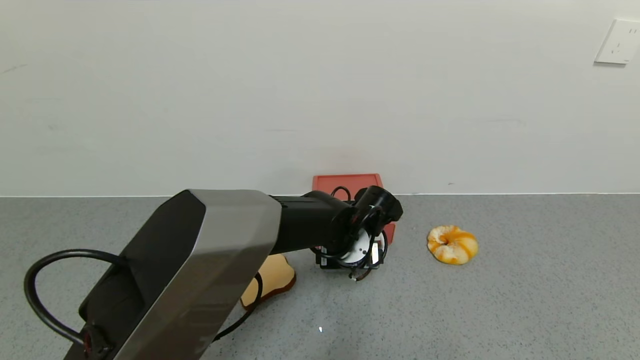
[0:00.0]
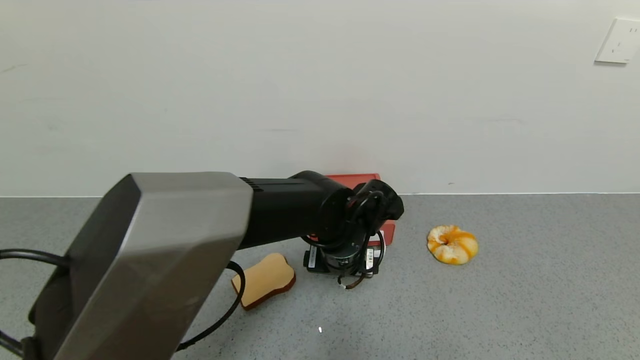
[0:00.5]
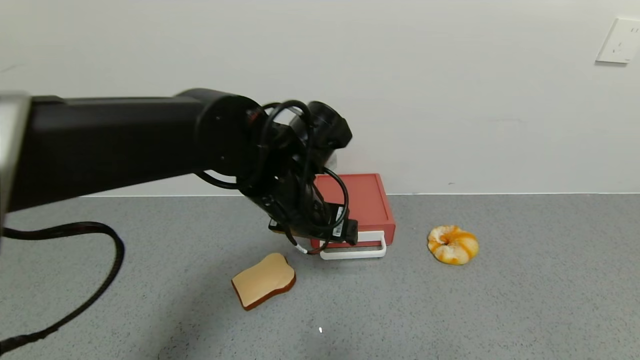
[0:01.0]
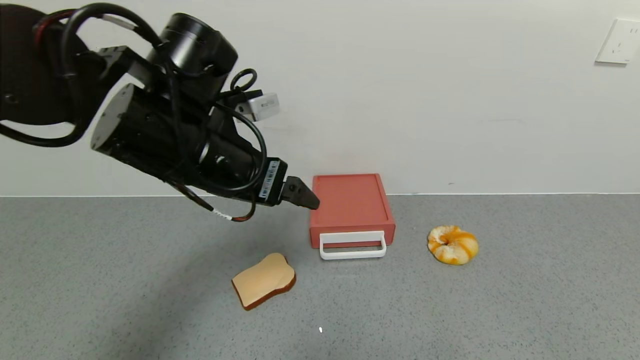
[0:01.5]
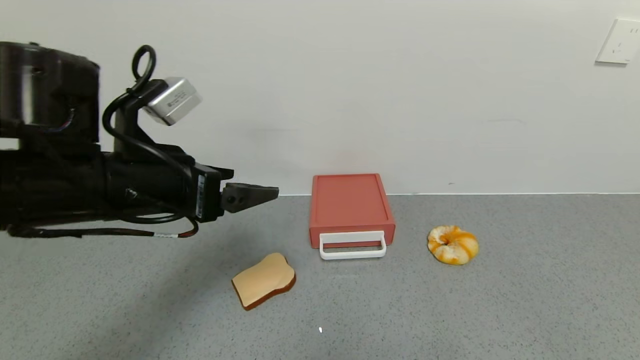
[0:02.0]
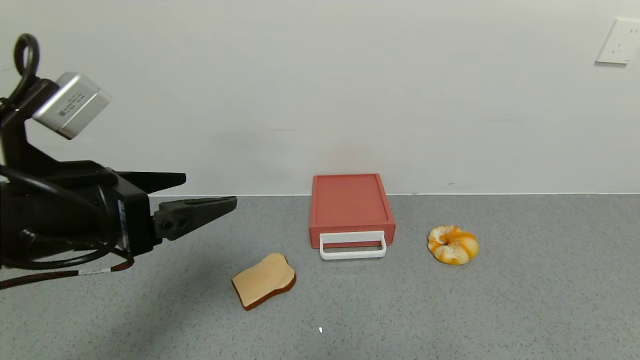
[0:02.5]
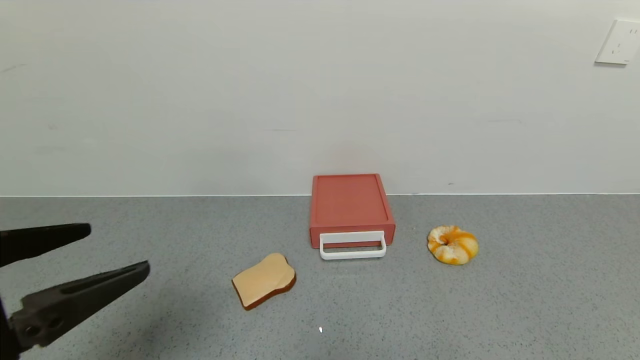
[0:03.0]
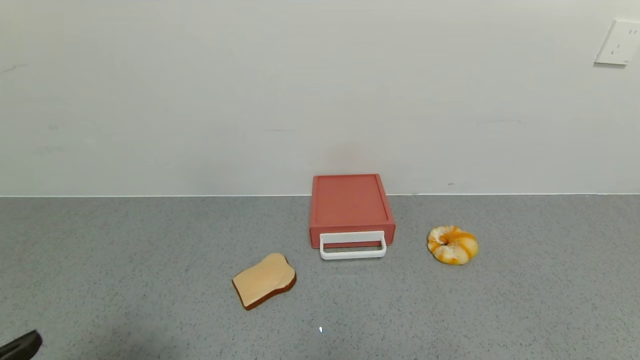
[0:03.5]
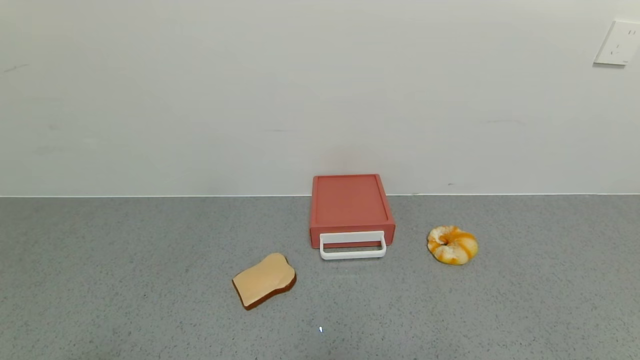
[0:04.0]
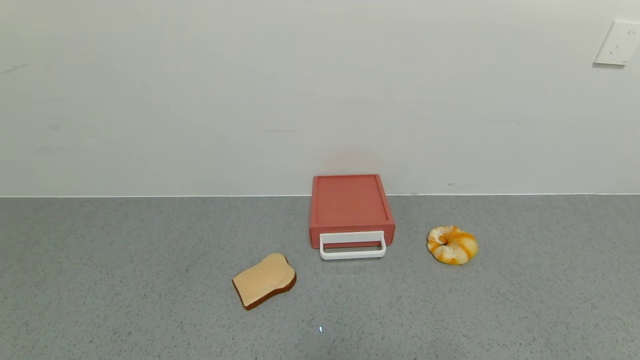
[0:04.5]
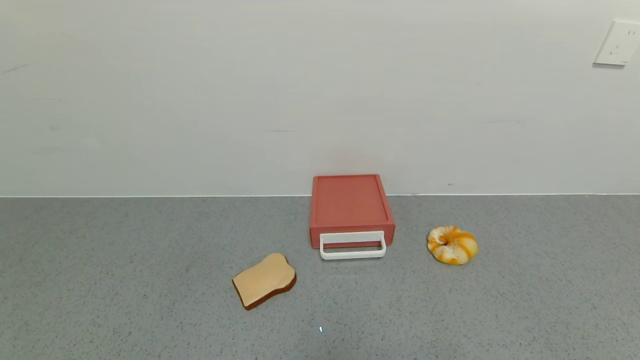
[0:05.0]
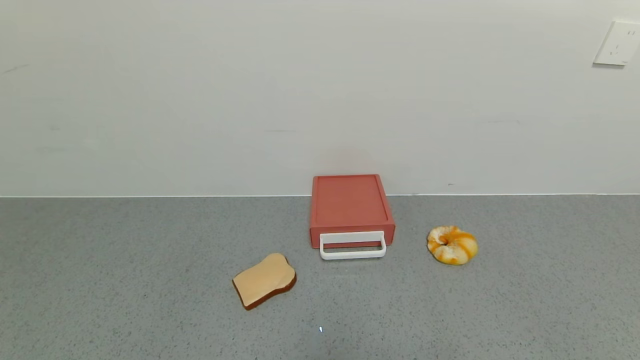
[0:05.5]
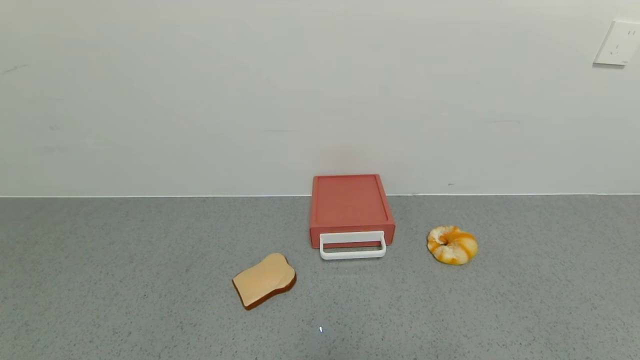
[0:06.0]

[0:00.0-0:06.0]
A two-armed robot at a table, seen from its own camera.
Task of the whole recording: use the gripper to open the drawer and close the red drawer.
0:00.0 to 0:02.0: The left gripper goes approximately 30 cm to the left, upward and backward.
0:02.0 to 0:04.0: The left gripper shifts some 25 cm backward.

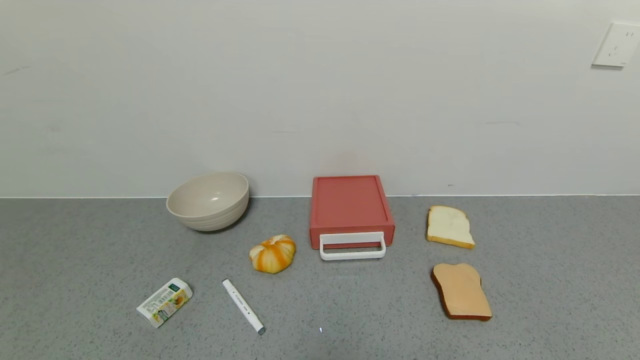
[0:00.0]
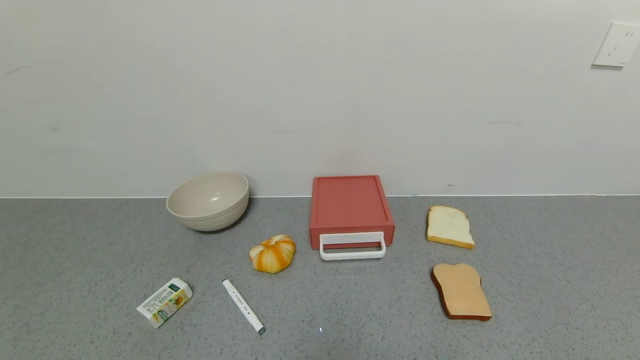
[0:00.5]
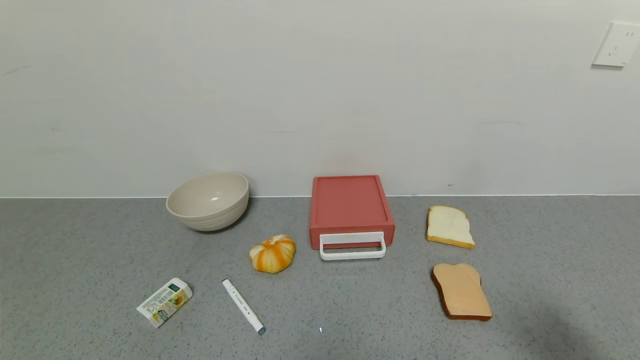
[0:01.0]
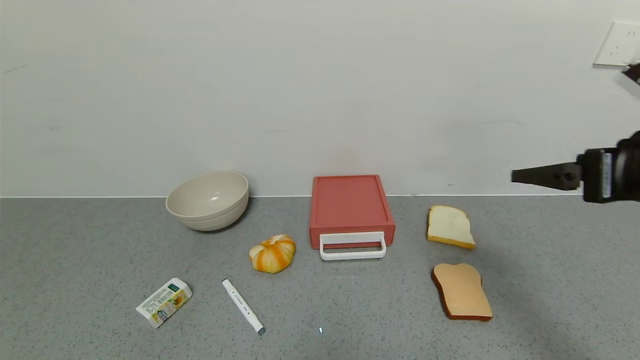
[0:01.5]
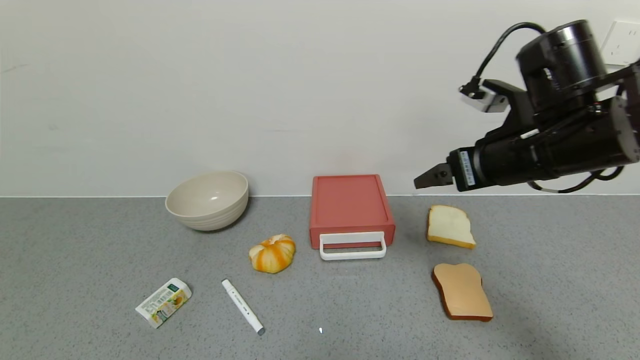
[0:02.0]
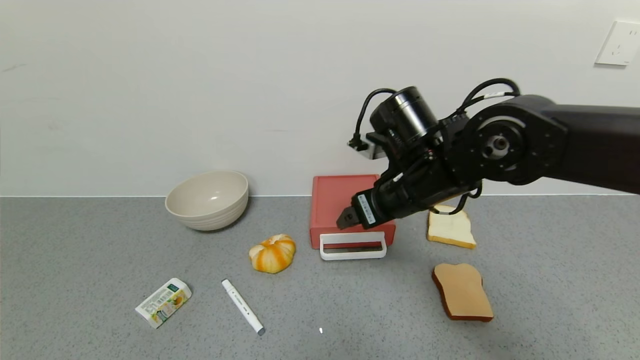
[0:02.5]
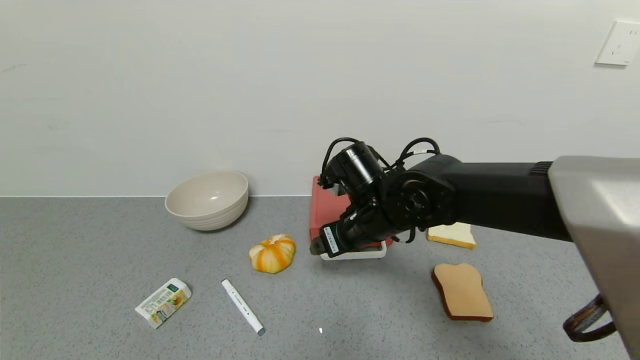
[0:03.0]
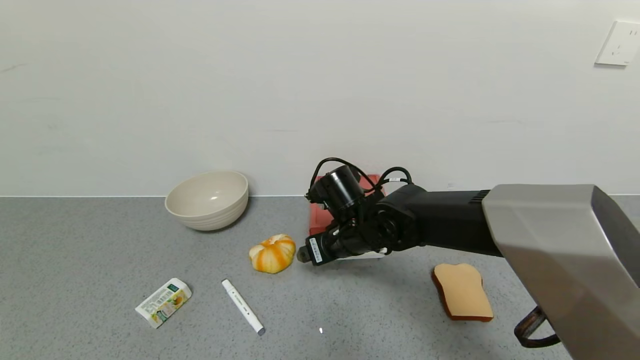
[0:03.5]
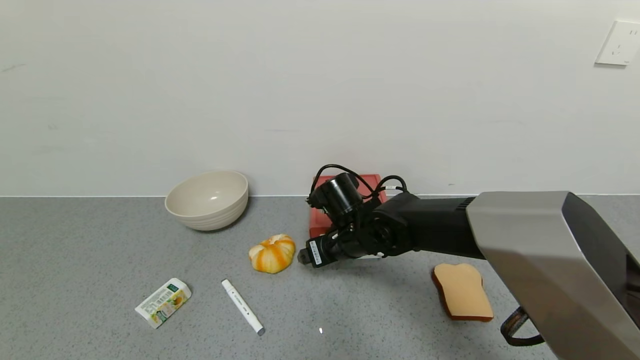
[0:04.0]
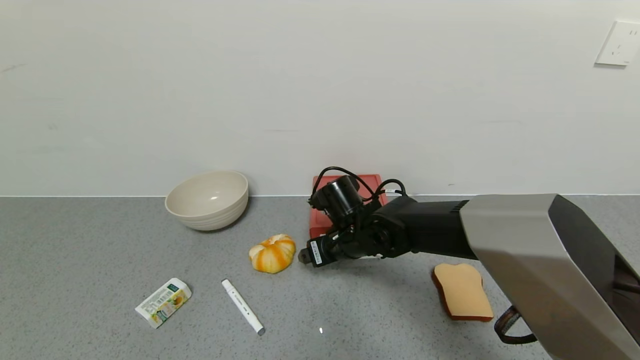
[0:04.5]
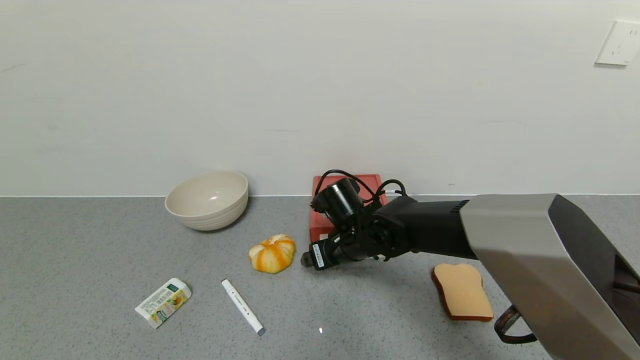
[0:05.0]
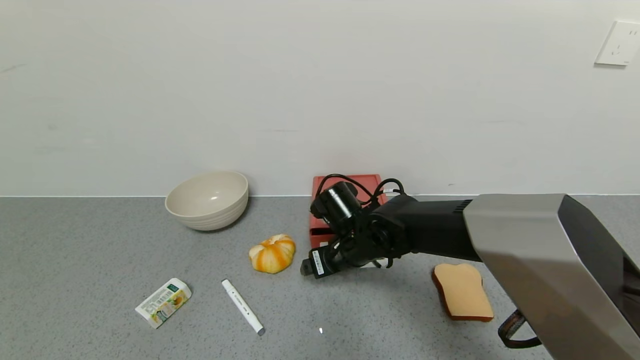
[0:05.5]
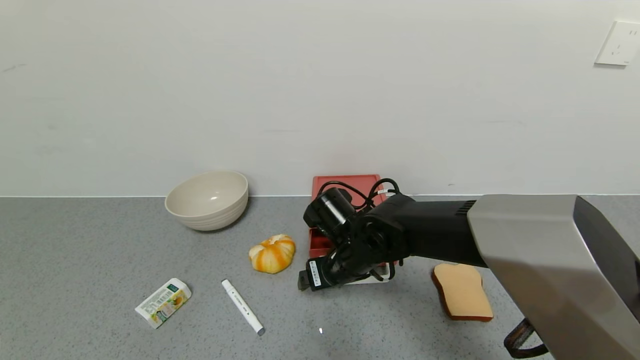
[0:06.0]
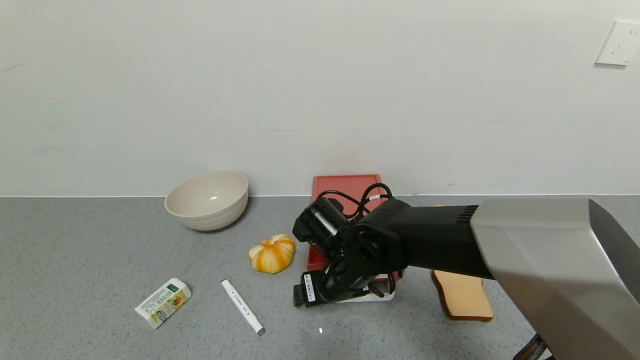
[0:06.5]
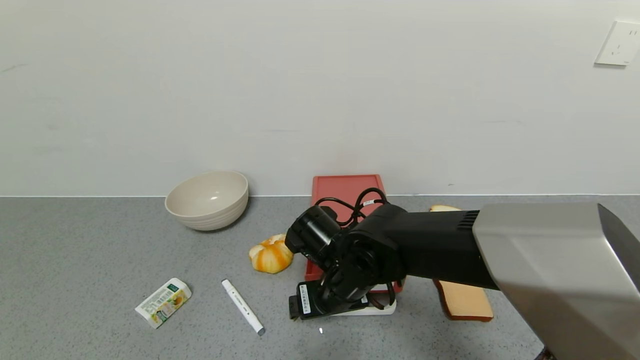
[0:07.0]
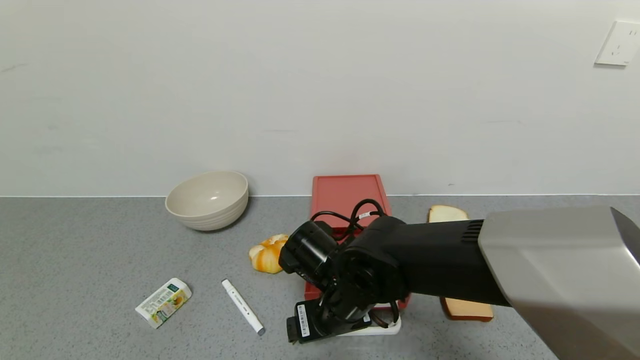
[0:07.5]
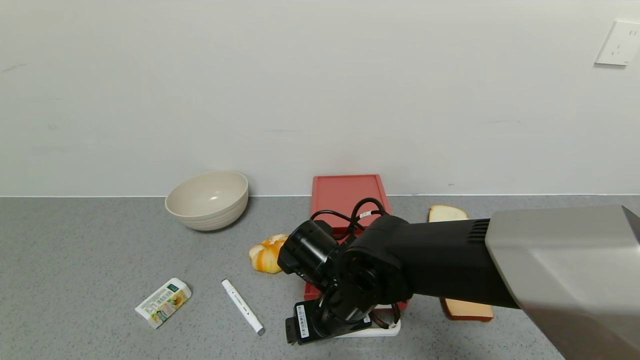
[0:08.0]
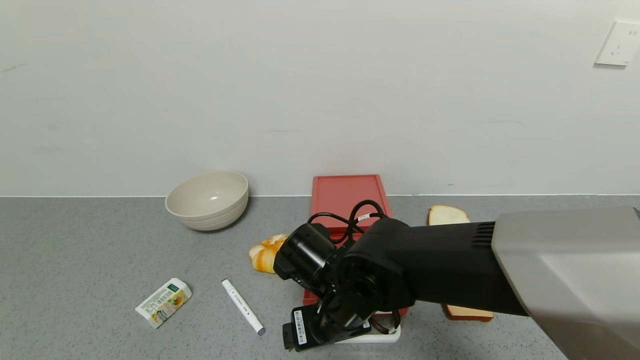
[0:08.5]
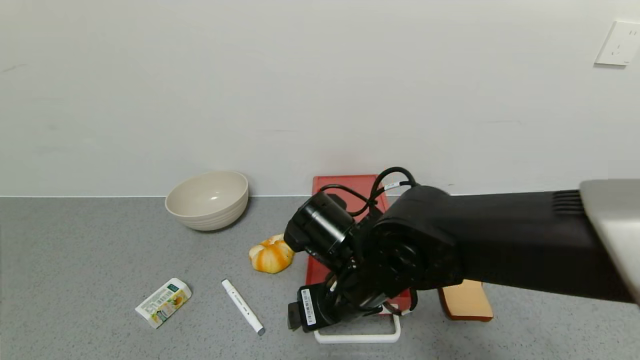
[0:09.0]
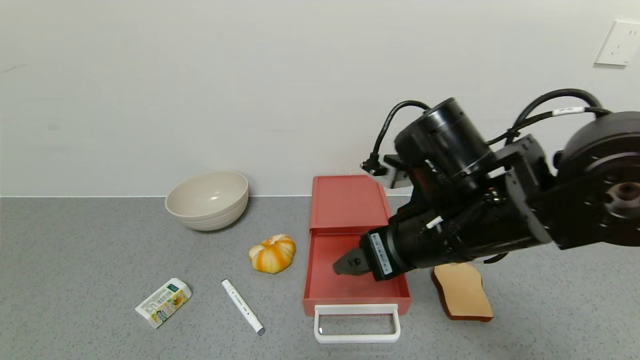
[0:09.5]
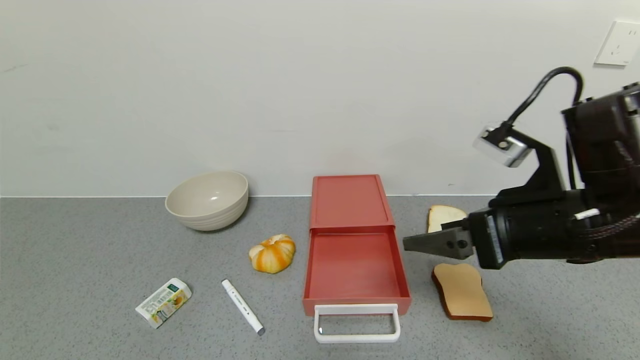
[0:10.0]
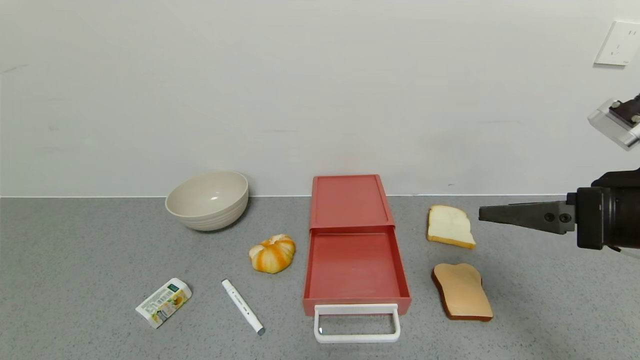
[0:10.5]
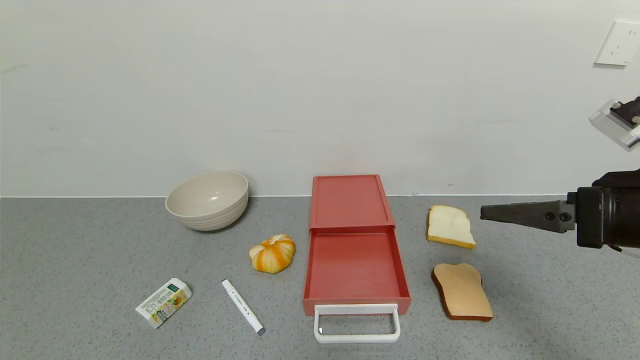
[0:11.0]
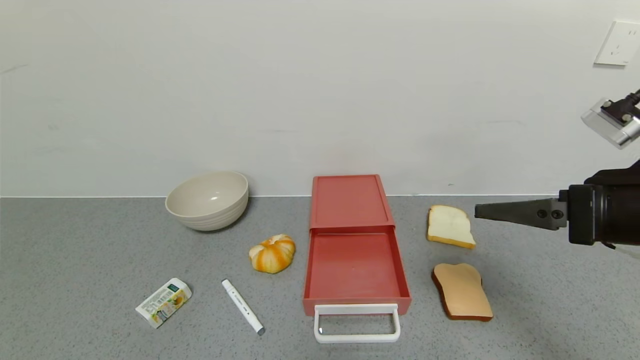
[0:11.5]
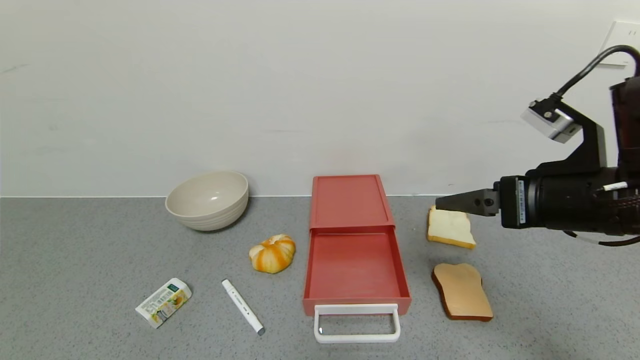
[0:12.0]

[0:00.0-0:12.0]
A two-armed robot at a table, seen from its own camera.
Task of the whole recording: use the gripper to open the drawer and close the red drawer.
Step, 0:00.0 to 0:09.0: Open the red drawer with the right gripper.
0:00.0 to 0:02.0: The right gripper heads forward and to the left, covering approximately 30 cm.
0:02.0 to 0:04.0: The right gripper travels to the left and downward by roughly 25 cm.
0:04.0 to 0:06.0: The grippers make only small movements.
0:06.0 to 0:08.0: The right gripper goes some 5 cm backward.
0:08.0 to 0:10.0: The right gripper goes roughly 25 cm to the right and upward.

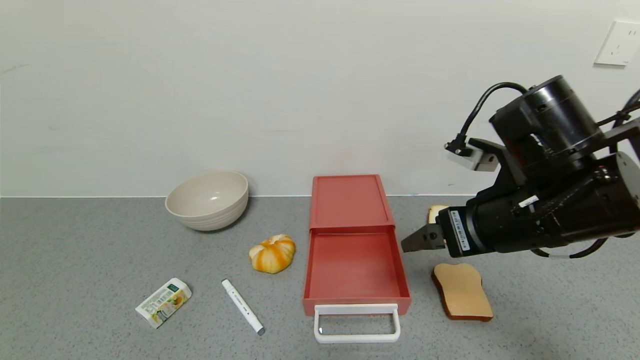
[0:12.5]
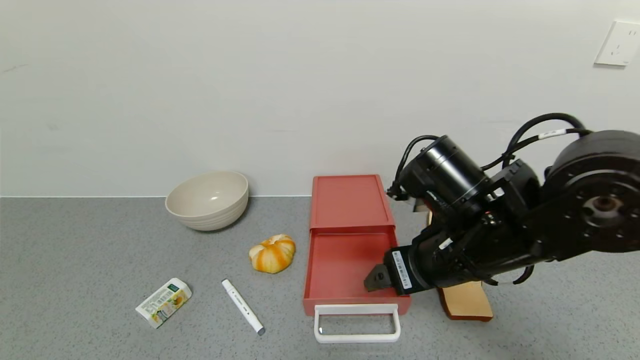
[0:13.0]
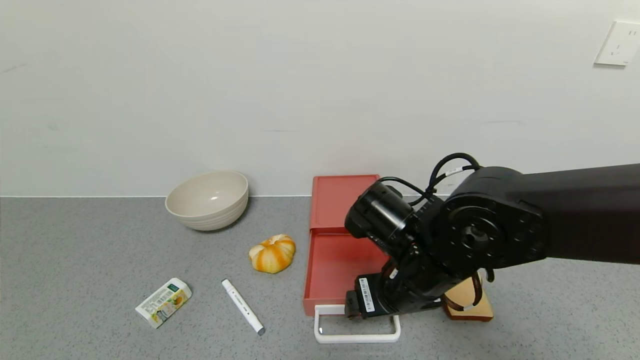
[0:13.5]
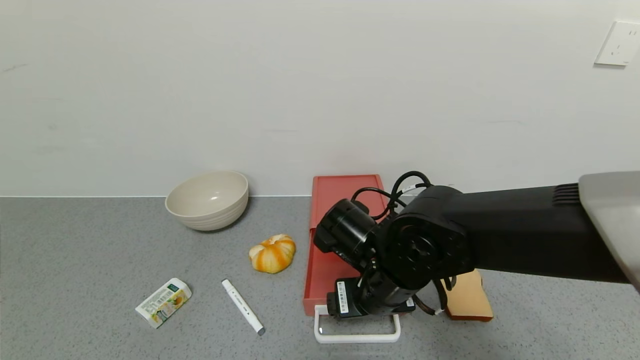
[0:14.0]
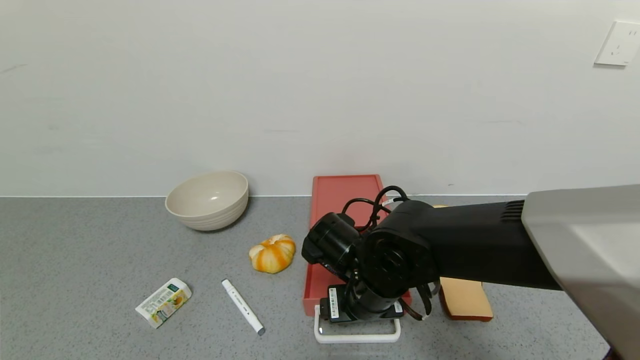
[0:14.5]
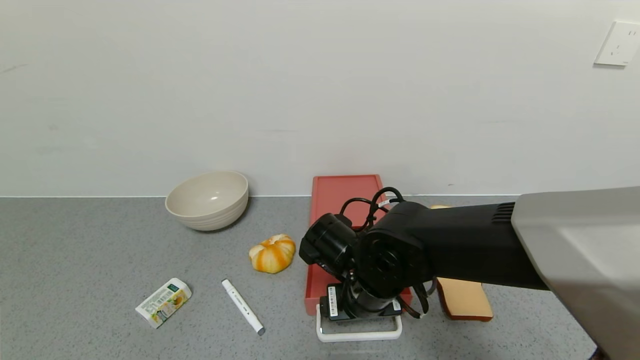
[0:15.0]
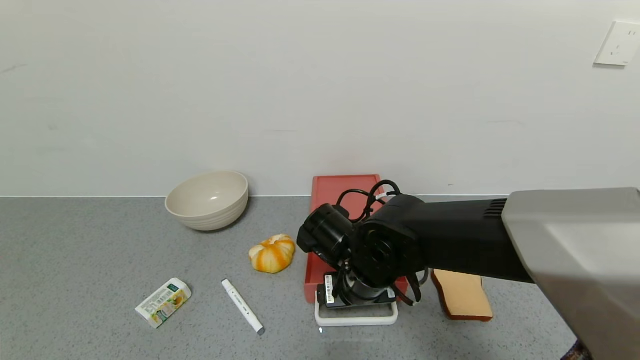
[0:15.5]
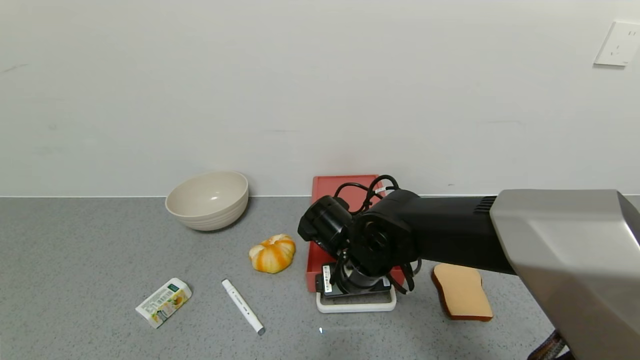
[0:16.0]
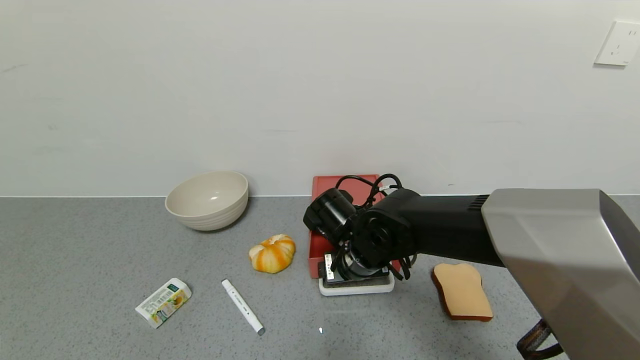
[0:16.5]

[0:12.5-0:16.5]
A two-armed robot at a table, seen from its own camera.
Task of the whole recording: use the gripper to open the drawer and close the red drawer.
0:12.5 to 0:14.5: The right gripper goes approximately 20 cm to the left and downward.
0:14.5 to 0:16.5: The right gripper travels forward by approximately 5 cm.
